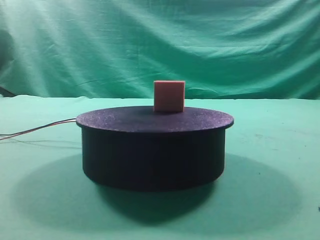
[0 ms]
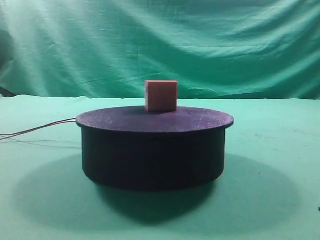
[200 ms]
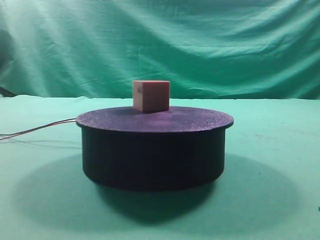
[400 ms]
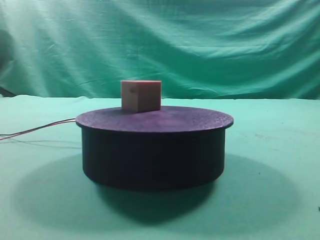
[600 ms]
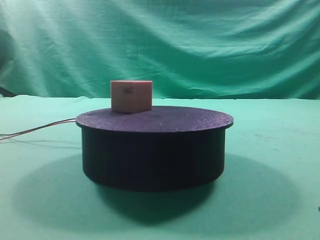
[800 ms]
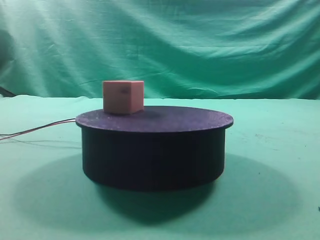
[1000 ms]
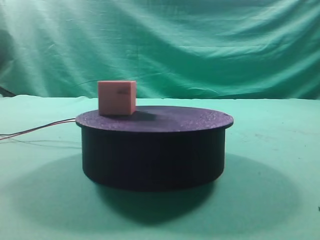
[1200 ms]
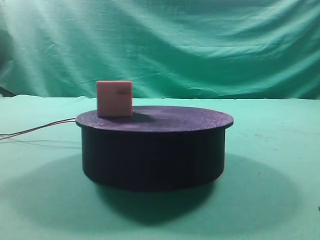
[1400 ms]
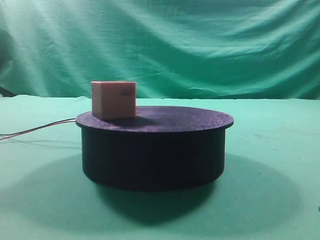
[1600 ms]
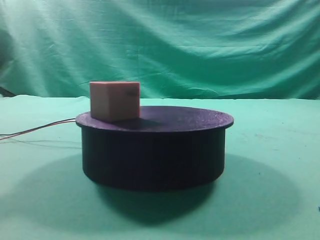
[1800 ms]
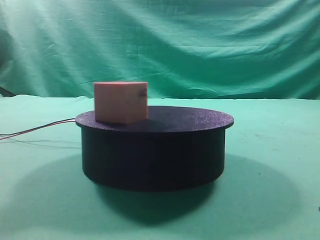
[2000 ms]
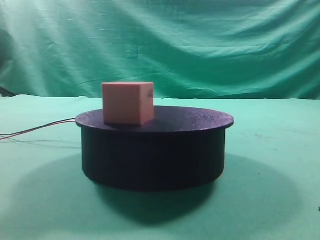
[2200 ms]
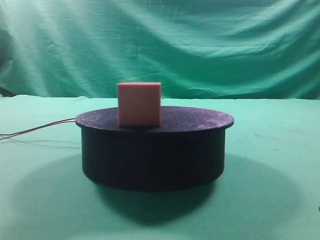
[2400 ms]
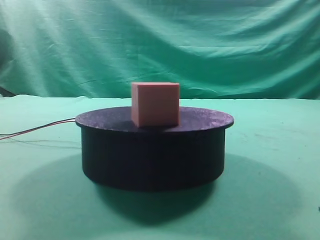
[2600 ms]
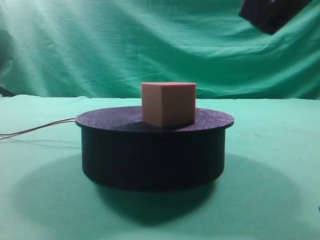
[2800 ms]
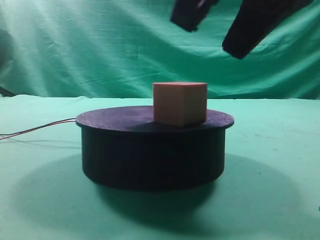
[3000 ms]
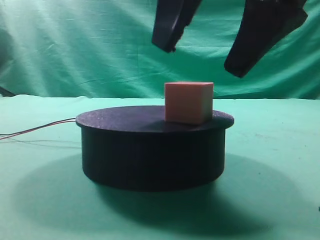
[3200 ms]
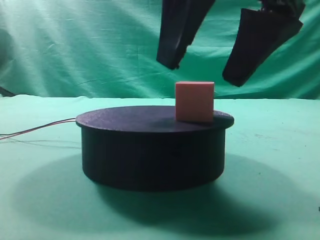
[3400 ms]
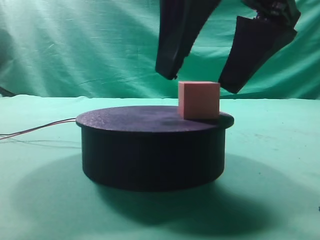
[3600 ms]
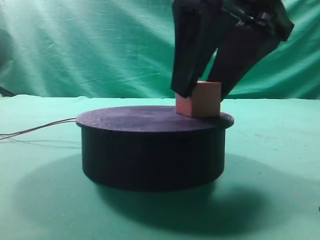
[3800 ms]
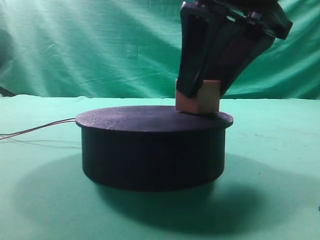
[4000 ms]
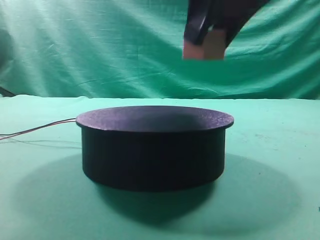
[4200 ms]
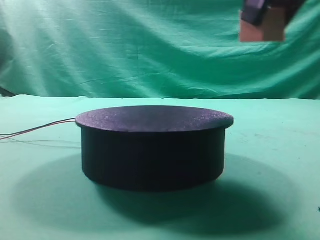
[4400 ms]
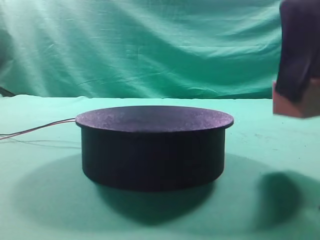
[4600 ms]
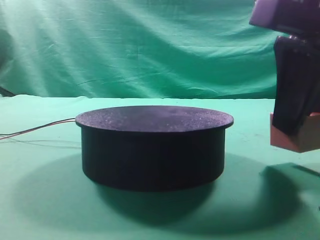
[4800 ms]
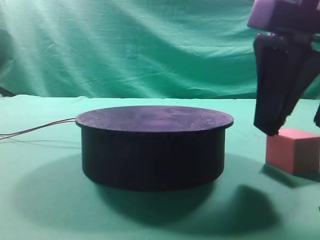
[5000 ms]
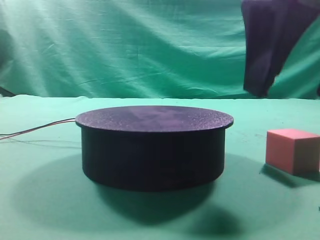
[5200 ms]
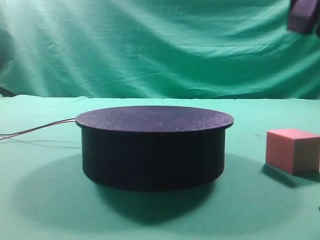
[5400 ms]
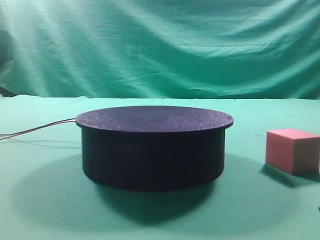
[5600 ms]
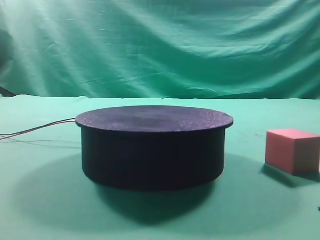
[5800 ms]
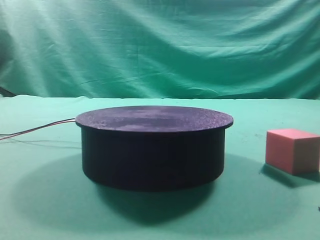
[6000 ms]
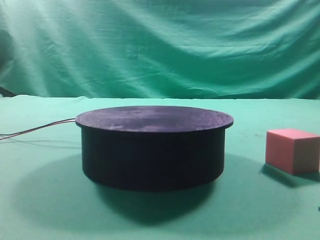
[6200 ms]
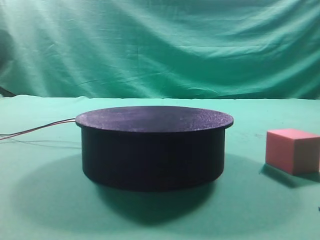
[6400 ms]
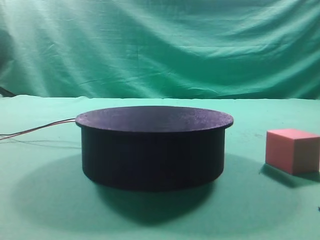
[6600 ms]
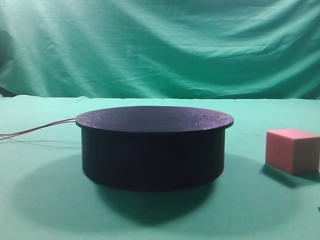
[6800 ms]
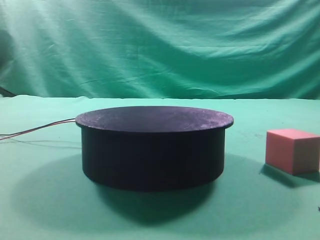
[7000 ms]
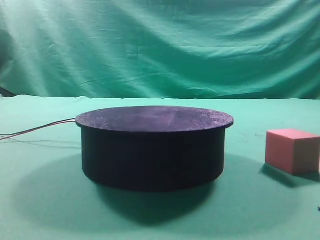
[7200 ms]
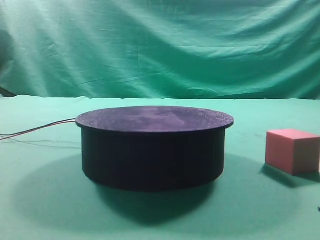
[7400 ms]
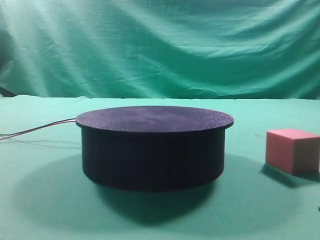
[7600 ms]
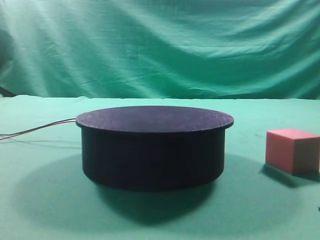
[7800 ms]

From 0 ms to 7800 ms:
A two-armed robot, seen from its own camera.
Task of the whole recording: grasp the rotating cube-shaped block on the turntable and place it on the table.
Step, from 0 ms to 4000 ms: Grasp the rotating cube-shaped block on the turntable.
Step, from 4200 ms to 5000 ms: Place the cube on the desk.

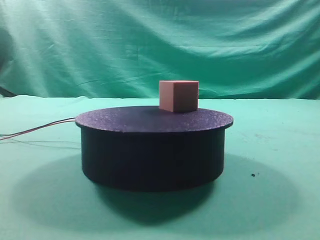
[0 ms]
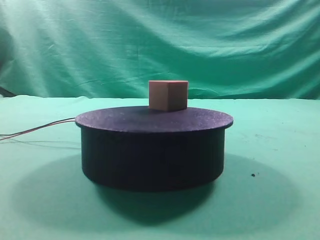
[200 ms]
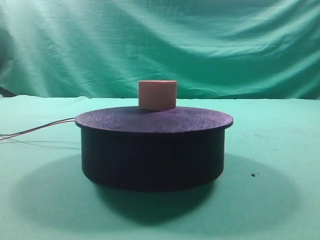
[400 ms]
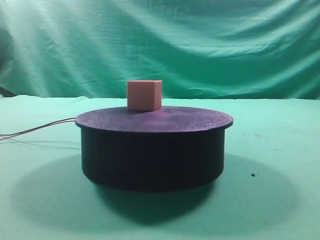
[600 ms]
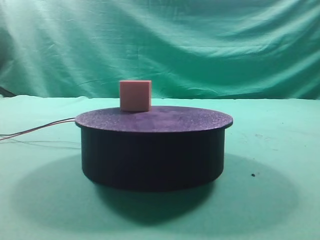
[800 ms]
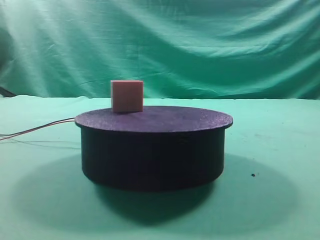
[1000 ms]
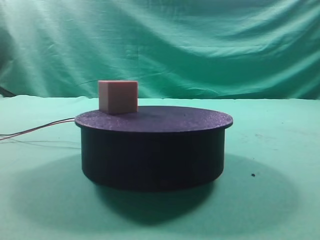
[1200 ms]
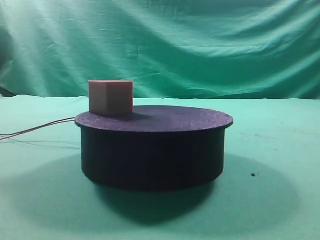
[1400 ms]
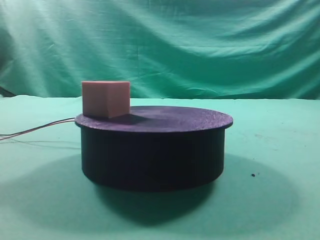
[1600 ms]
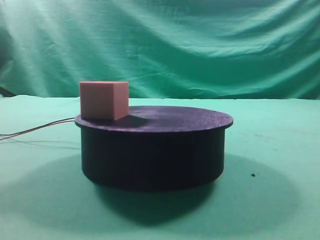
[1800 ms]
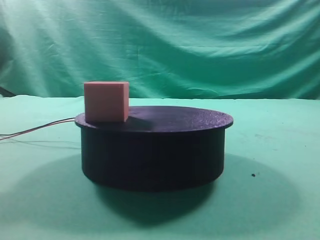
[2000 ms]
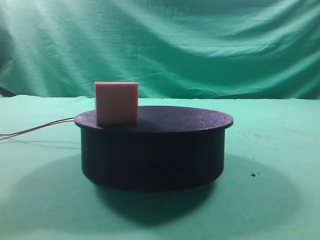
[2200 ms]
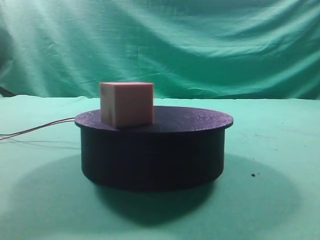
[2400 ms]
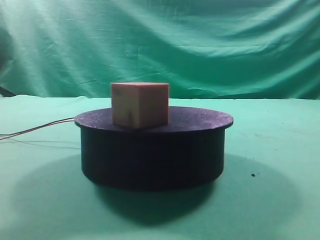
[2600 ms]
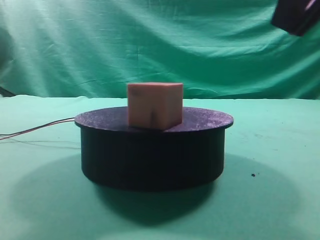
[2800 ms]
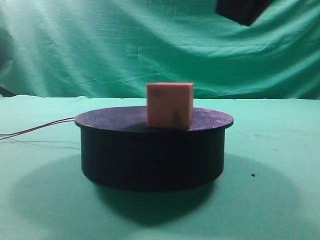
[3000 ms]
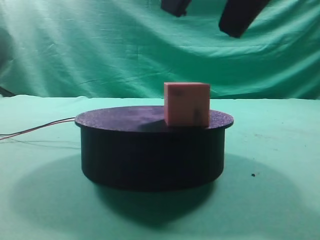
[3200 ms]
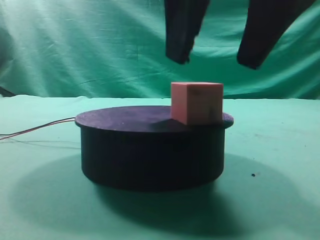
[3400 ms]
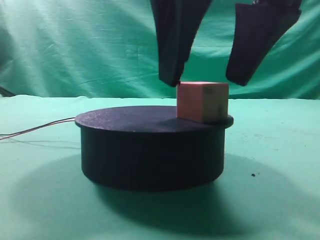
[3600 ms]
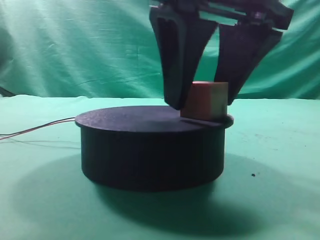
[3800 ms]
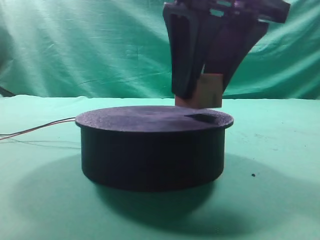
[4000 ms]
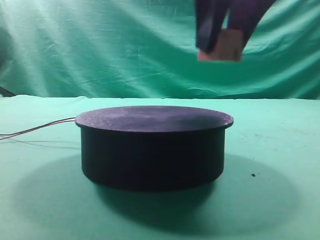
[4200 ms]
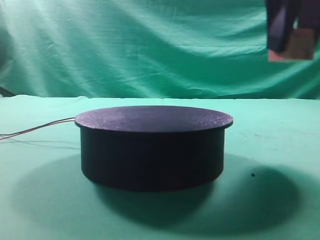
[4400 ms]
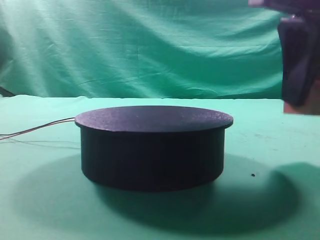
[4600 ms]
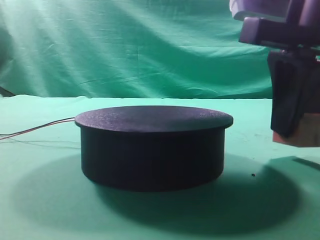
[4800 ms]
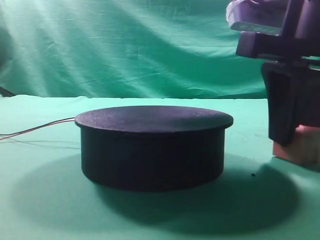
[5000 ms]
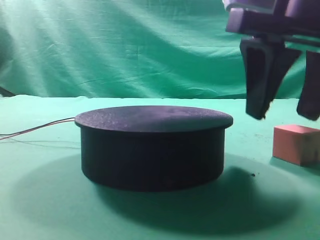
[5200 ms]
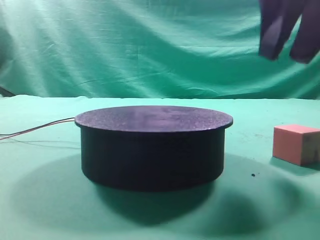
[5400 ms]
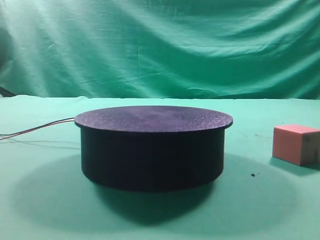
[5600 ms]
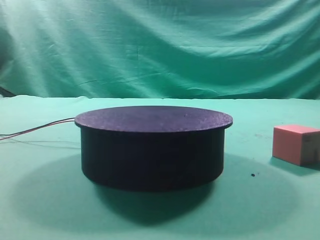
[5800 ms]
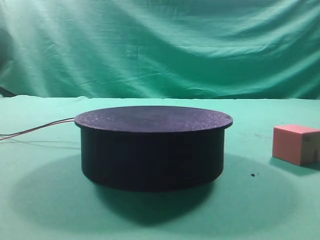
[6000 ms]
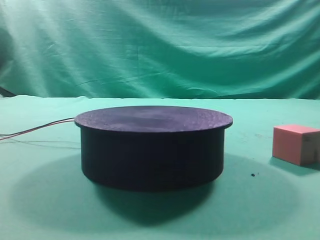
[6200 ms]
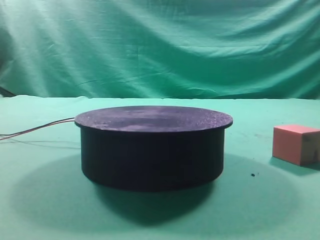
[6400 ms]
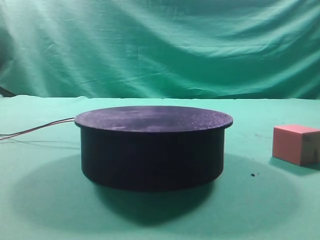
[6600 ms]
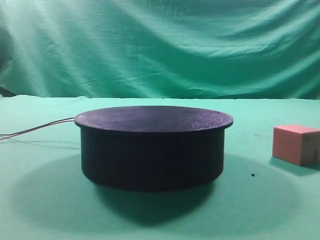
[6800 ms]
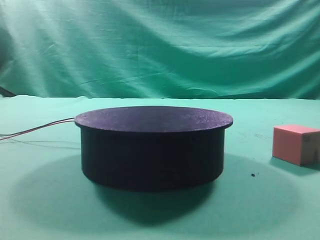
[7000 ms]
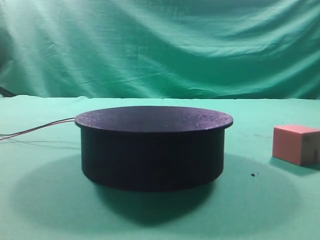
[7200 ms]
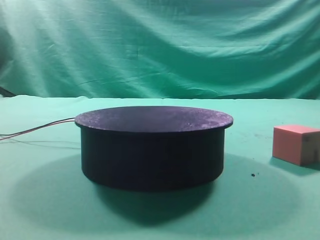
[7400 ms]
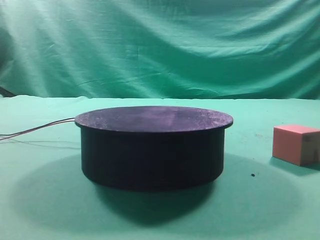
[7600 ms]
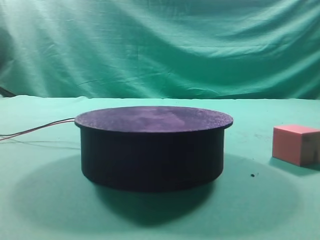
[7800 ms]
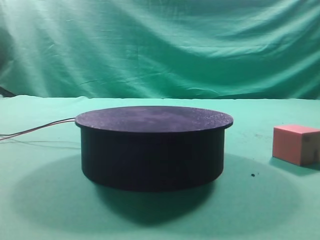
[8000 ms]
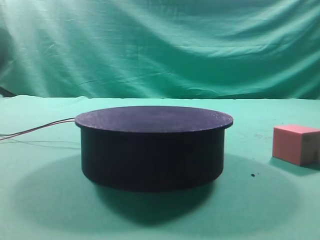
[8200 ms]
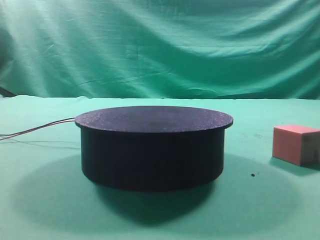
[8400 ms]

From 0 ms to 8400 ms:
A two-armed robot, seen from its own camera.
Task of the whole recording: grasp the rotating cube-shaped block on the turntable and place it on the table.
Step, from 0 ms to 4000 ms: Grasp the rotating cube-shaped block on the turntable.
Step, from 4200 ms to 5200 ms: Place the cube on the desk.
